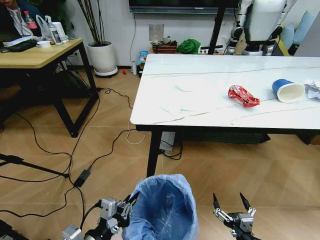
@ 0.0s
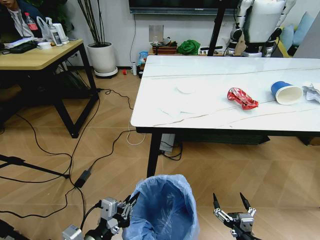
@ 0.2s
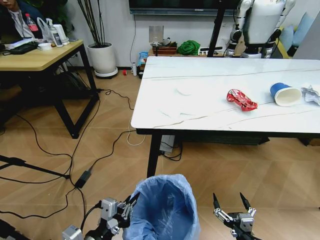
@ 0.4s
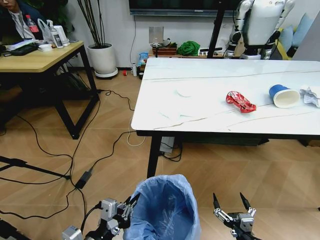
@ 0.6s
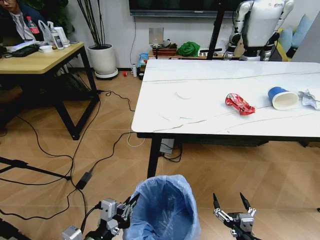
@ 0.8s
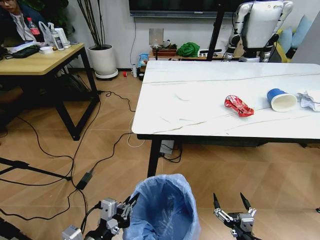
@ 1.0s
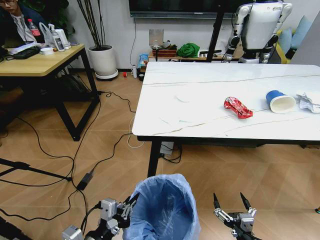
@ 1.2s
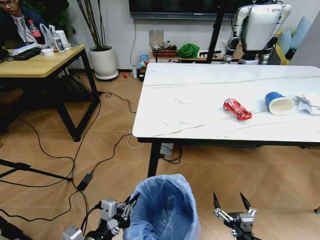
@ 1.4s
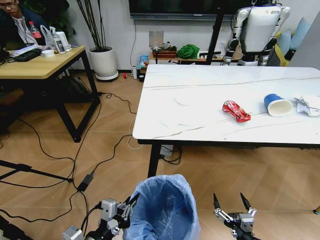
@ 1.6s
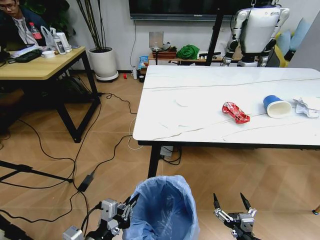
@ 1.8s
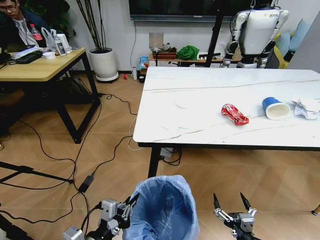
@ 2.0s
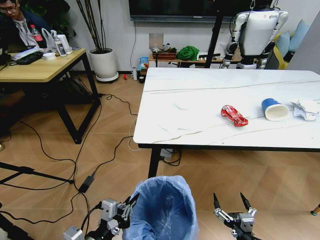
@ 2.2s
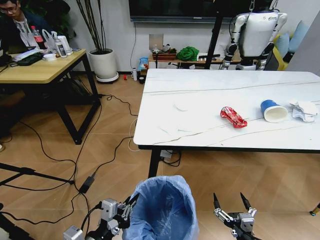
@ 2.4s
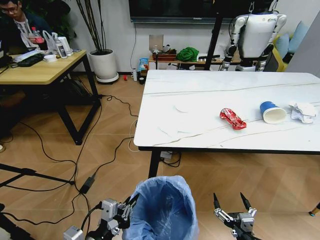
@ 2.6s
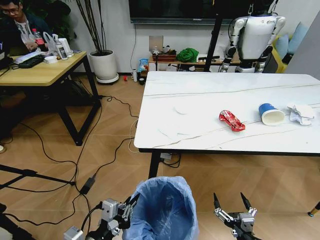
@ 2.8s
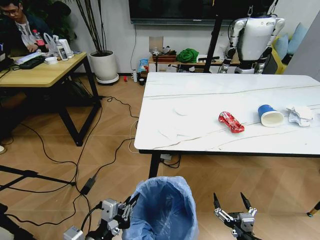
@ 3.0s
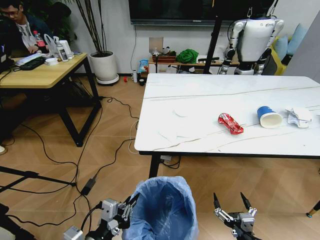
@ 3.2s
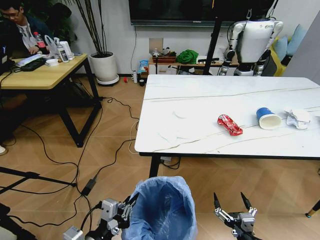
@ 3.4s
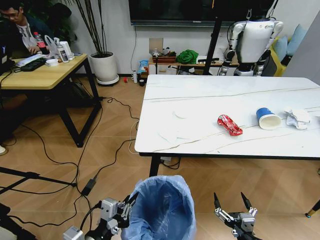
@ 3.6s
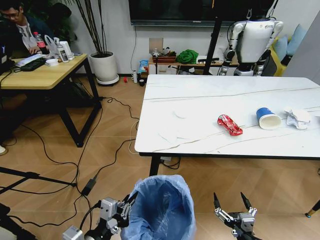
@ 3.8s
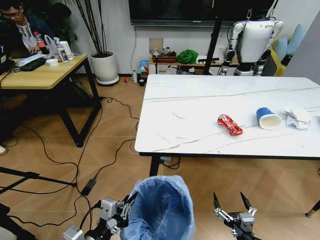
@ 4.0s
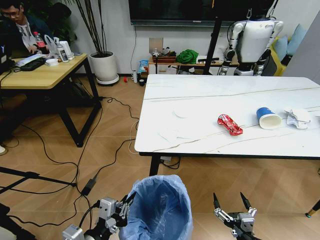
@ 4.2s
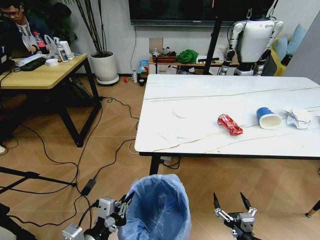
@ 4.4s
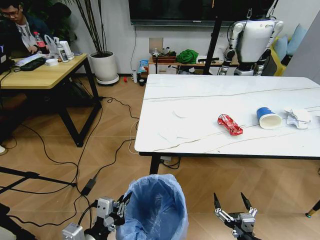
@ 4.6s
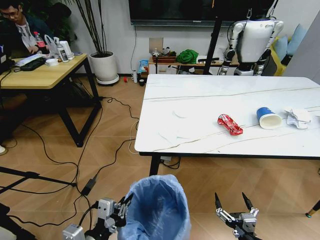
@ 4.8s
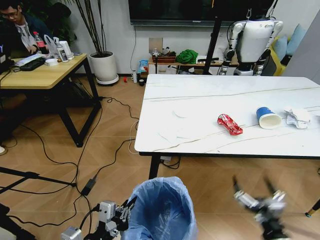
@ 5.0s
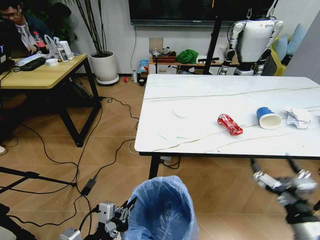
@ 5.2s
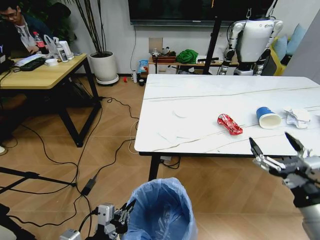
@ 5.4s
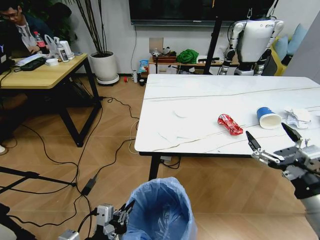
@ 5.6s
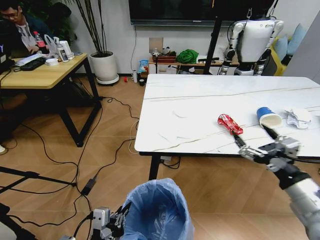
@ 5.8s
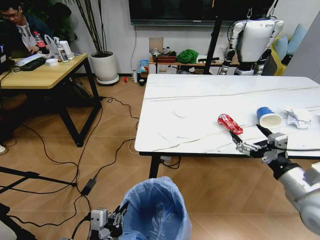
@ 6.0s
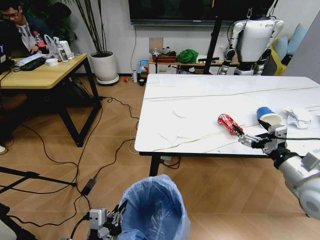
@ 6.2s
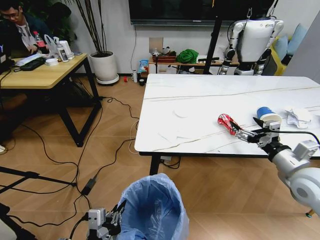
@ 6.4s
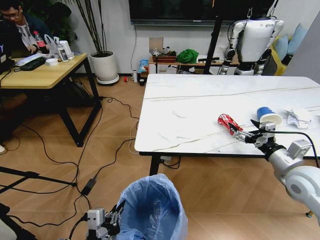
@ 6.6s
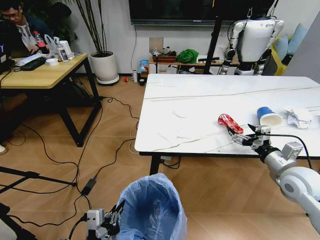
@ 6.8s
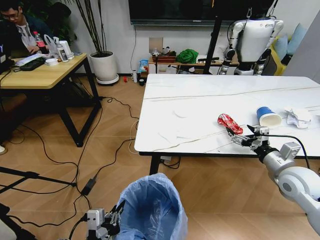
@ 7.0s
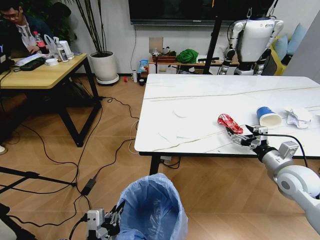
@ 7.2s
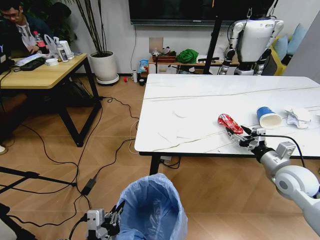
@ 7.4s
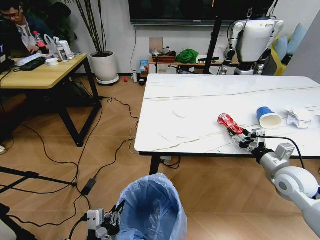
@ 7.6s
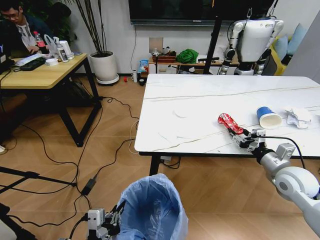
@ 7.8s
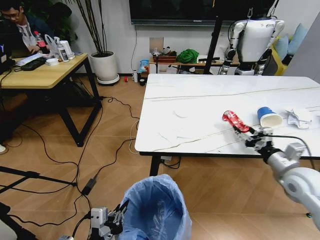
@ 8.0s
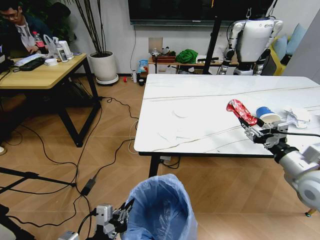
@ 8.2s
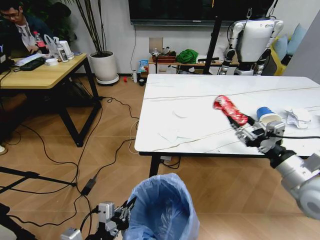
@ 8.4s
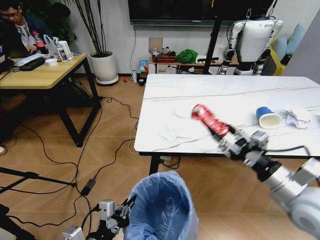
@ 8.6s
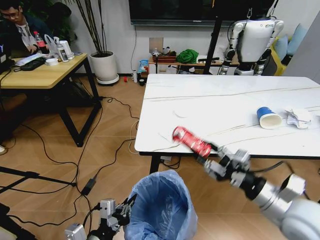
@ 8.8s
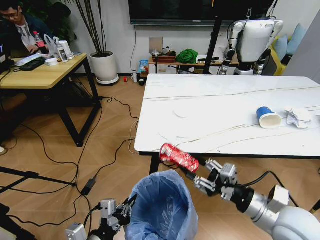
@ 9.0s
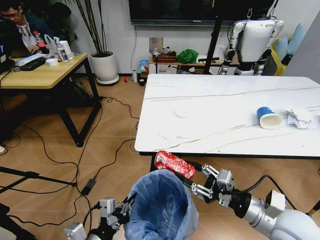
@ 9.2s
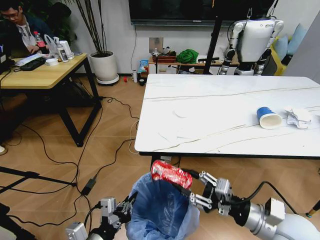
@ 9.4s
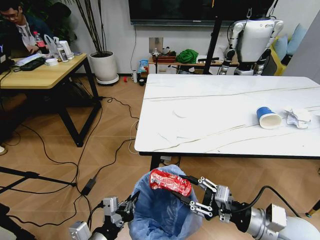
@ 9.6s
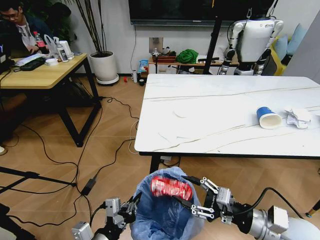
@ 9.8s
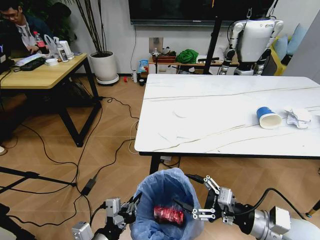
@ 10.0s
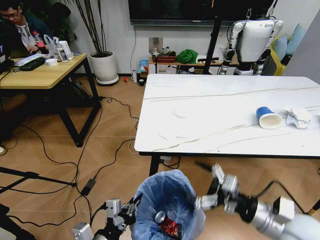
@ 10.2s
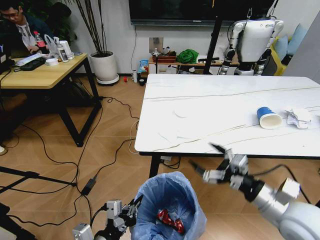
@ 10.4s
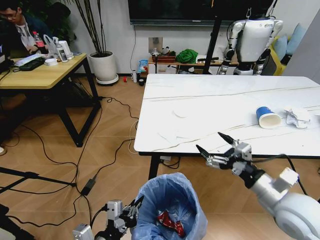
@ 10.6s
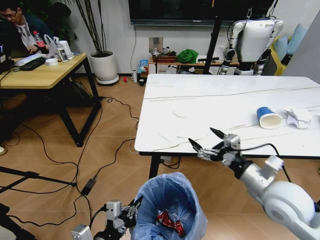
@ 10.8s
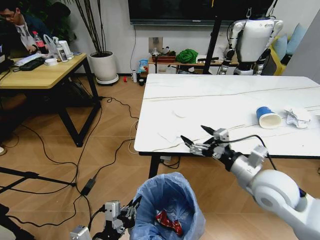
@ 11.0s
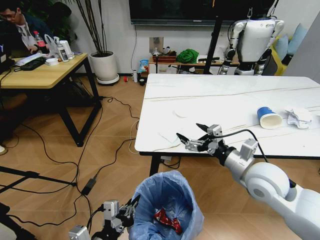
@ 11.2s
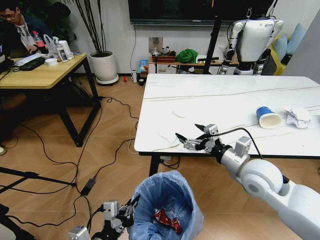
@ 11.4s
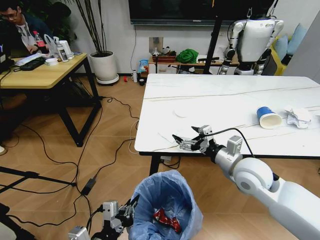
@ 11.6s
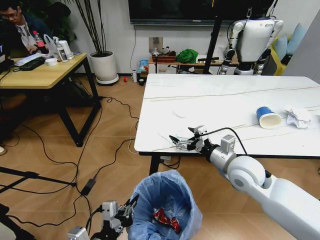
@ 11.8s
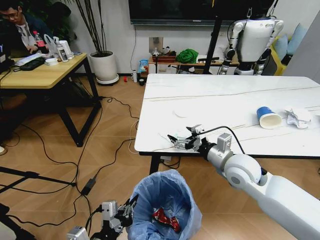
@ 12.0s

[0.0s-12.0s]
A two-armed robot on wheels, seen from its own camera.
Task of the whole recording: Pick up the trash bin and place the trash from the table into it.
3.0s to 4.4s: Both grippers stay put.
4.4s to 6.0s: The right gripper is displaced upward, forward and to the right by some 30 cm.
6.0s to 7.6s: The right gripper shifts roughly 15 cm forward and downward, and closes.
7.6s to 9.0s: The right gripper heads backward and to the left, covering roughly 15 cm.
9.0s to 10.4s: The right gripper opens.
10.4s to 12.0s: The right gripper travels forward and to the left by some 15 cm.

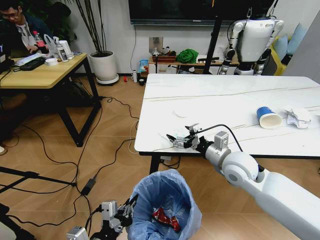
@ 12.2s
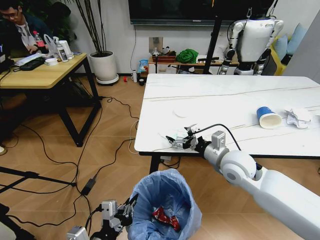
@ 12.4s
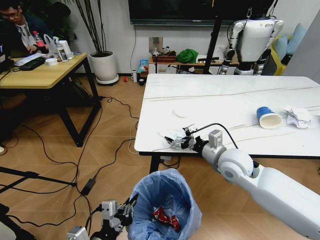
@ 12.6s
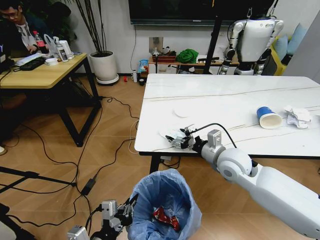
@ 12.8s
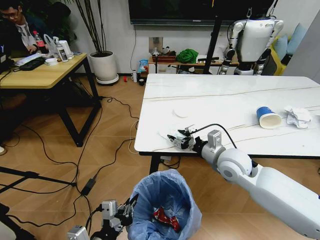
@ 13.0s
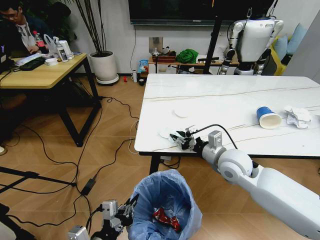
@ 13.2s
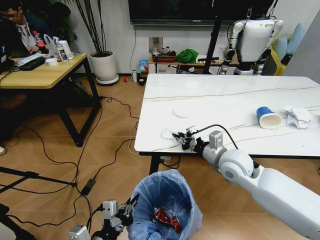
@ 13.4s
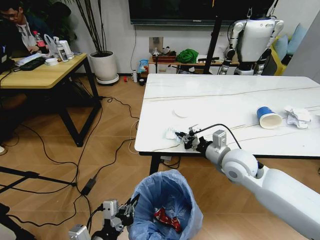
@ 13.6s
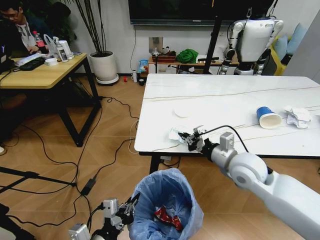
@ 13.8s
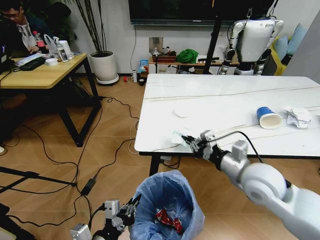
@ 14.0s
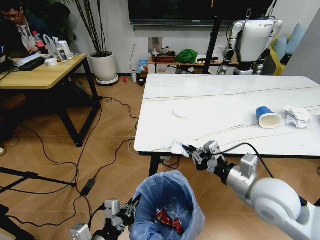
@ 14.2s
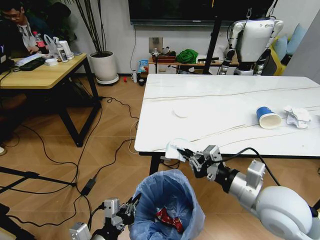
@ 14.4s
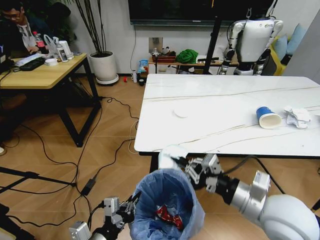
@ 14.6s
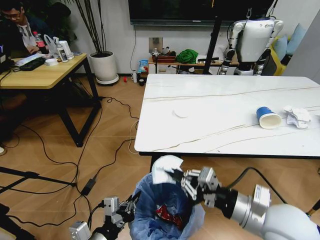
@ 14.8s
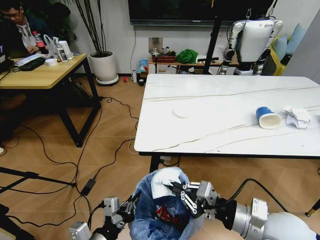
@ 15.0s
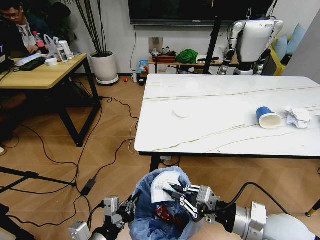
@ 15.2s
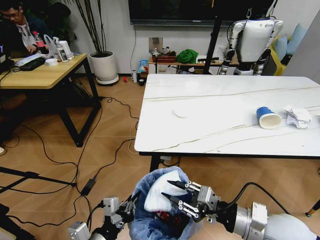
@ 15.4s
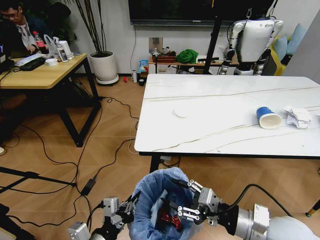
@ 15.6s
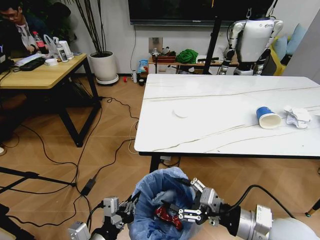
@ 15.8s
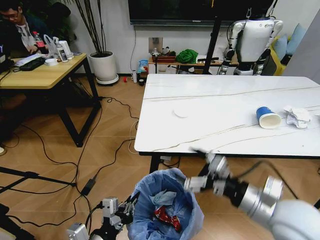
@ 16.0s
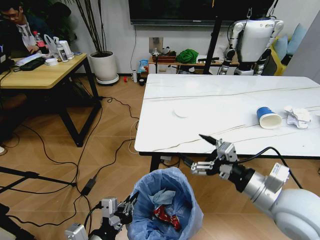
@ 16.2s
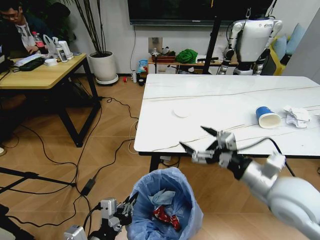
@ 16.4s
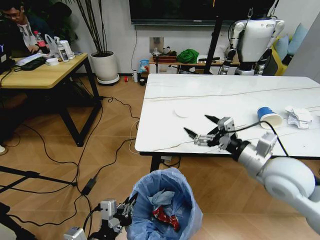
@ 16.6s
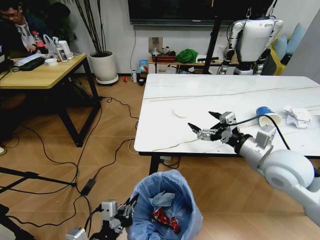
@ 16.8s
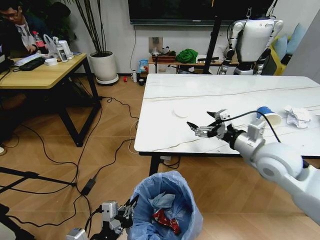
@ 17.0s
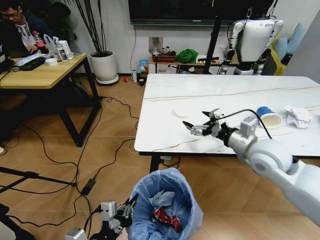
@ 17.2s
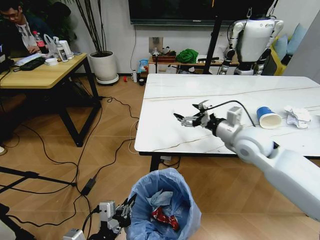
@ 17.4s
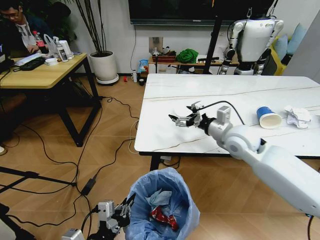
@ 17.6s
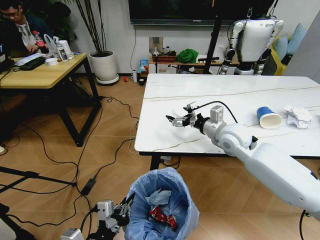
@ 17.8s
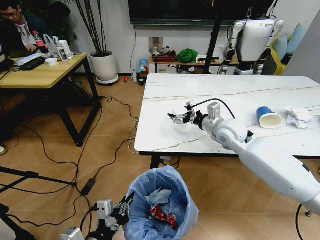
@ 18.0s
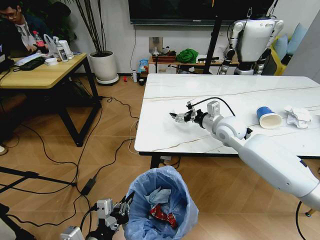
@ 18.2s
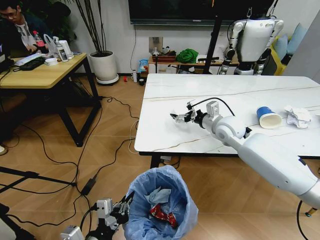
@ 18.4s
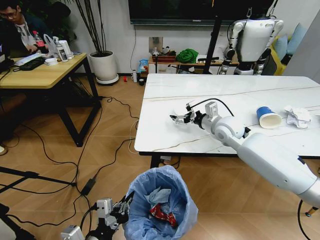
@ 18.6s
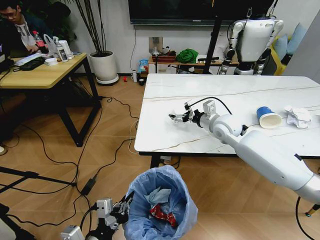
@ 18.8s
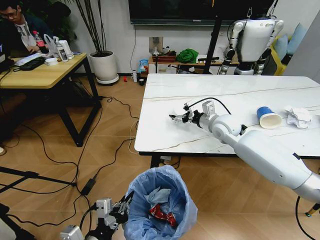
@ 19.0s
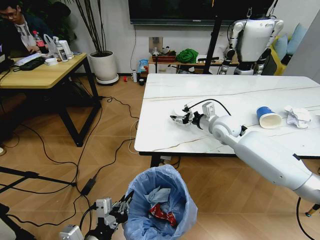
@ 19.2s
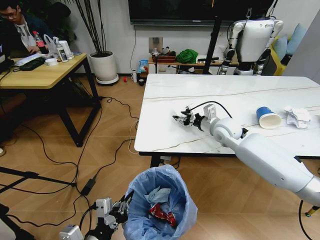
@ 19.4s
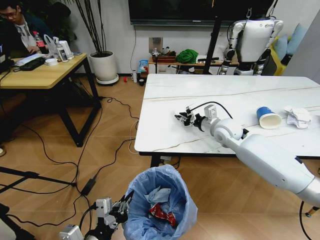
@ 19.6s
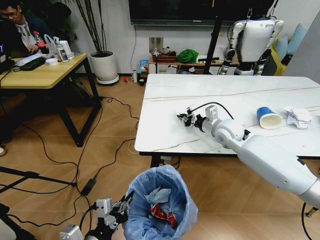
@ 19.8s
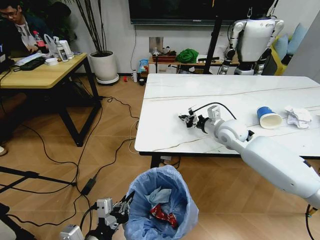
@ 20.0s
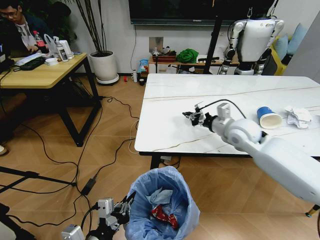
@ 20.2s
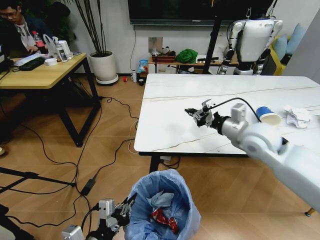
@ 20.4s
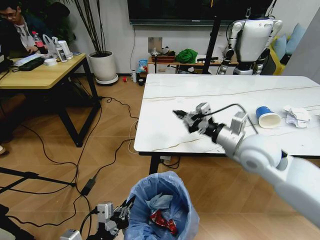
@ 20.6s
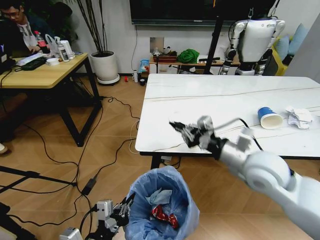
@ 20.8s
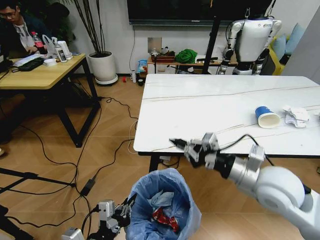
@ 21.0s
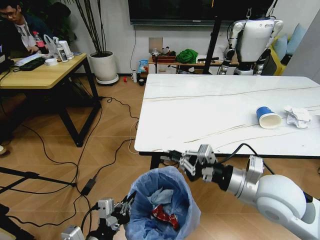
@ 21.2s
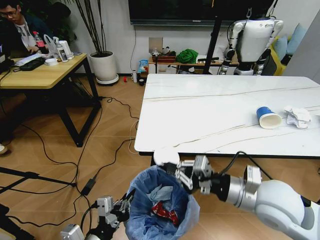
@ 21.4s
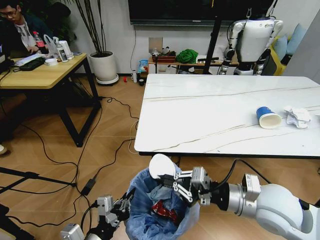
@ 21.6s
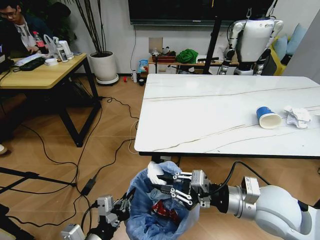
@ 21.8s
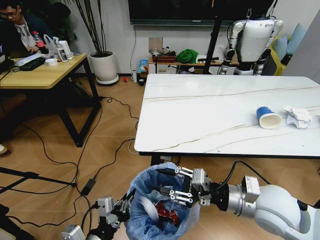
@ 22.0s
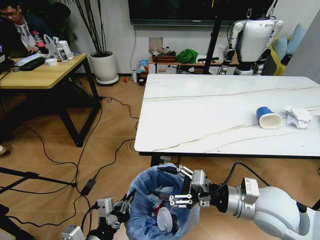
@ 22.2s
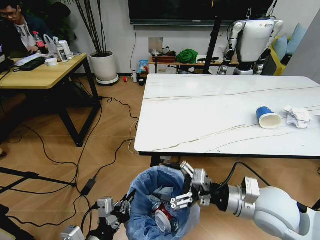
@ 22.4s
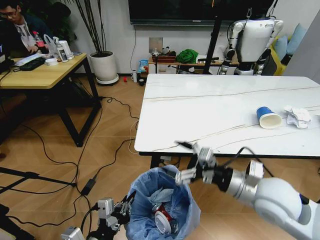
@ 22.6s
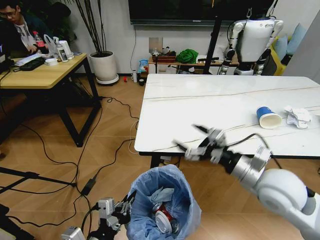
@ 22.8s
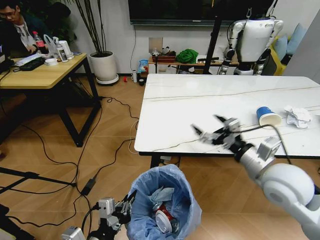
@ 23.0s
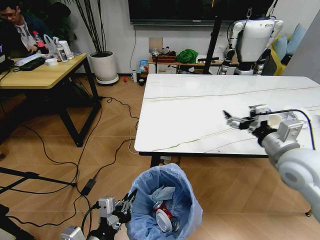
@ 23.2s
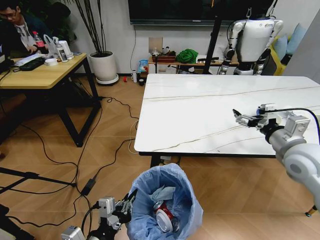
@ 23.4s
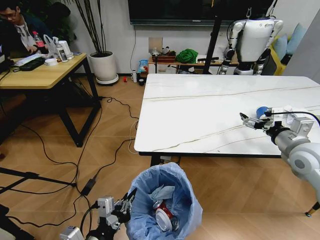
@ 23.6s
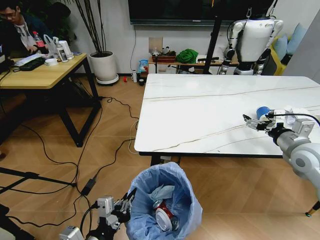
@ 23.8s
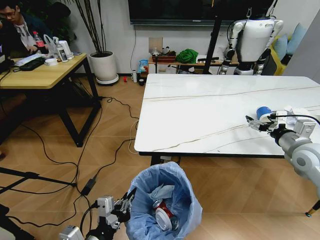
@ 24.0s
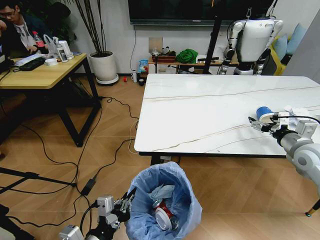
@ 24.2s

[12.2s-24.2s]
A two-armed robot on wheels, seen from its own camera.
Task of the whole recording: Pick up the trash bin and place the trash from the table into it.
12.2s to 13.8s: The right gripper closes its fingers.
13.8s to 15.2s: The right gripper moves backward, about 15 cm.
15.2s to 16.6s: The right gripper travels forward and upward by roughly 10 cm, and opens up.
16.6s to 18.2s: The right gripper shifts roughly 20 cm forward.
18.2s to 19.8s: The right gripper closes up.
19.8s to 21.2s: The right gripper goes about 25 cm backward.
21.2s to 22.6s: The right gripper opens.
22.6s to 24.2s: The right gripper travels to the right and forward by roughly 25 cm.
